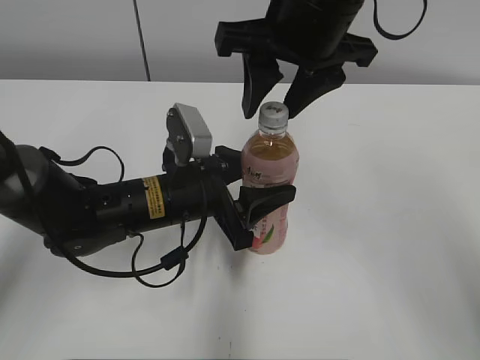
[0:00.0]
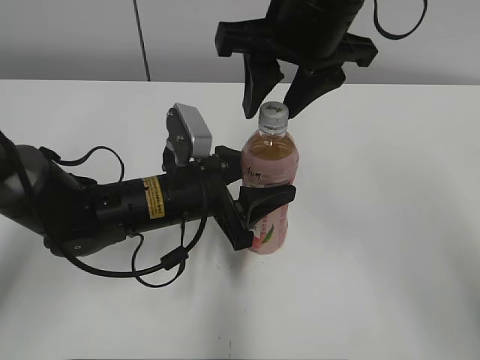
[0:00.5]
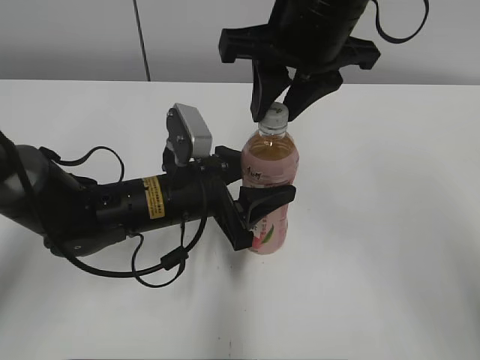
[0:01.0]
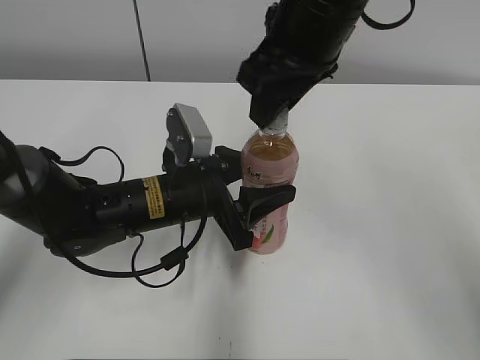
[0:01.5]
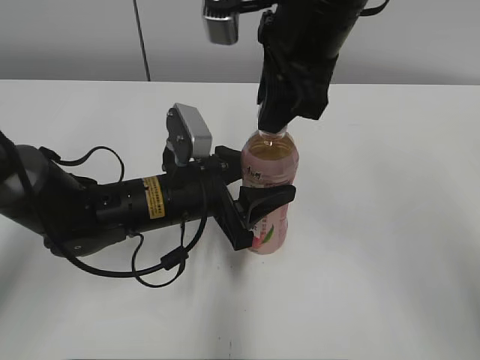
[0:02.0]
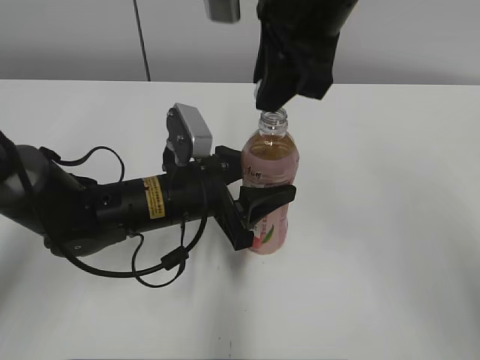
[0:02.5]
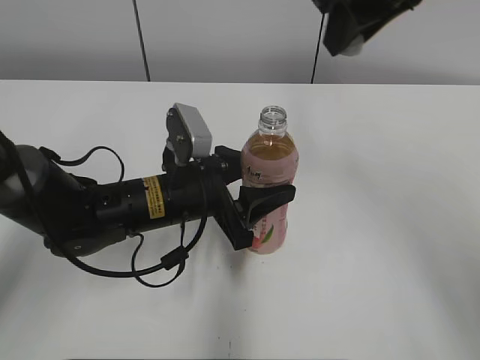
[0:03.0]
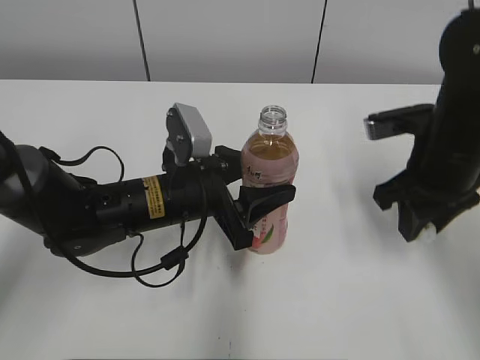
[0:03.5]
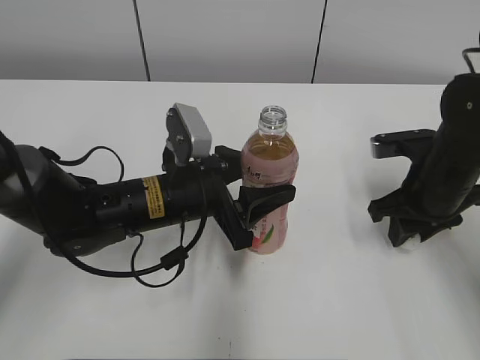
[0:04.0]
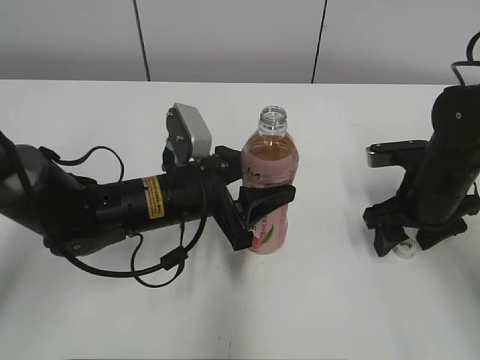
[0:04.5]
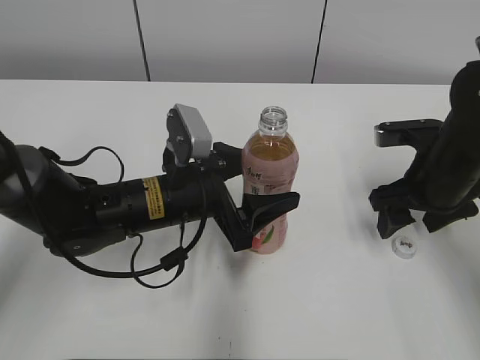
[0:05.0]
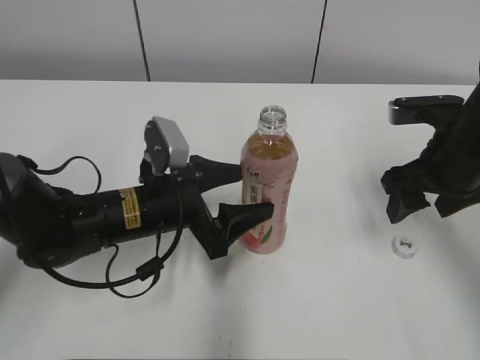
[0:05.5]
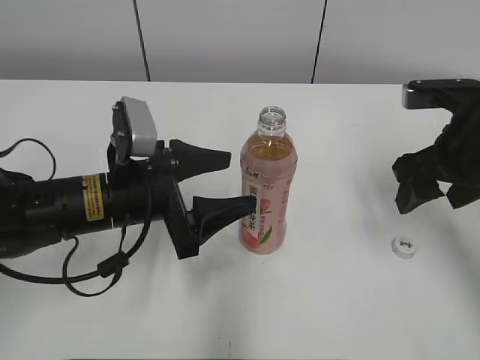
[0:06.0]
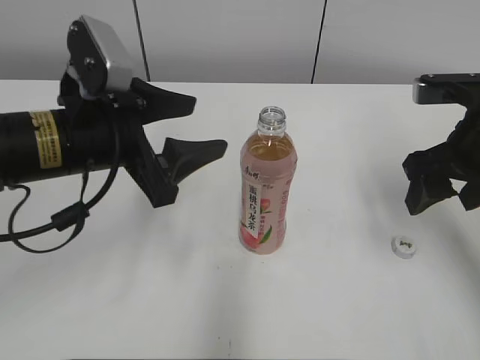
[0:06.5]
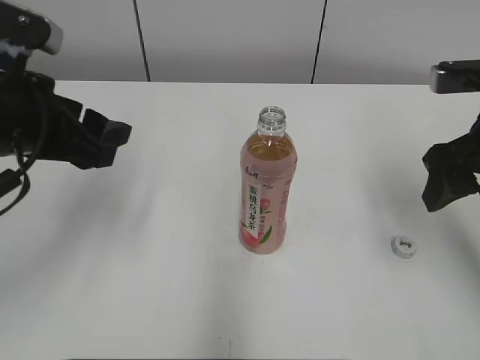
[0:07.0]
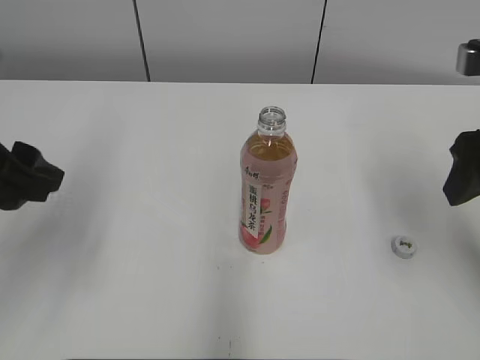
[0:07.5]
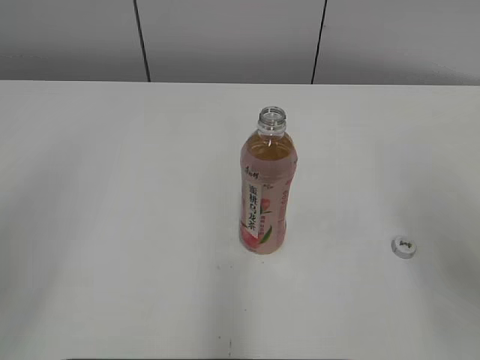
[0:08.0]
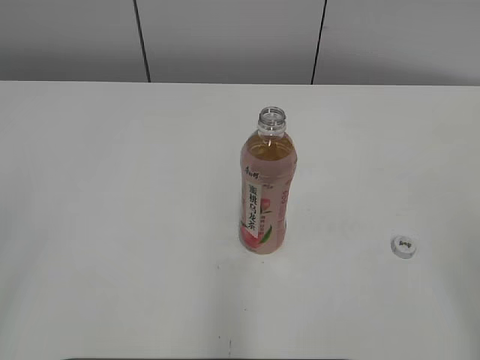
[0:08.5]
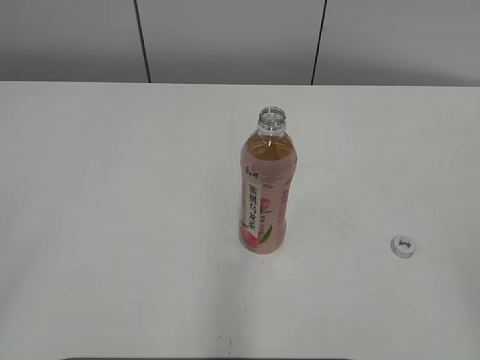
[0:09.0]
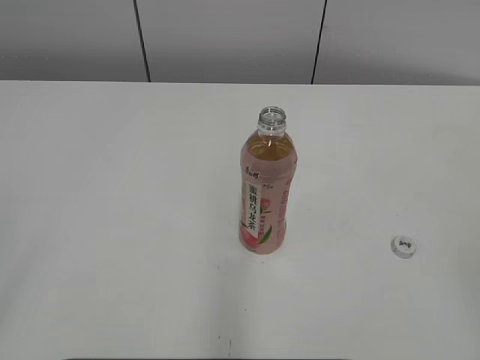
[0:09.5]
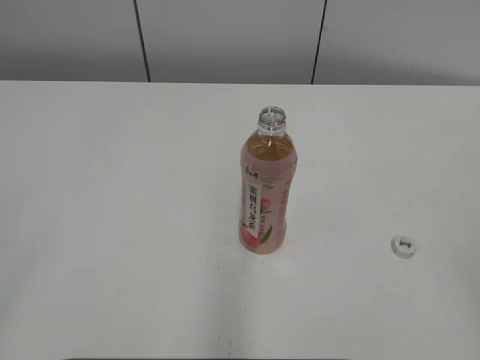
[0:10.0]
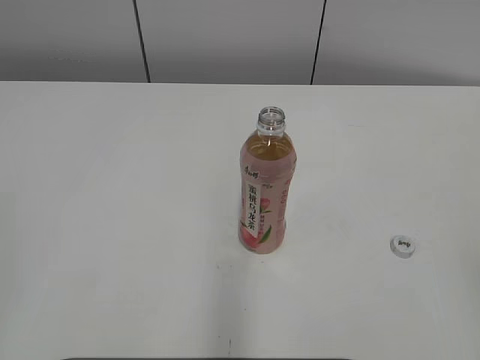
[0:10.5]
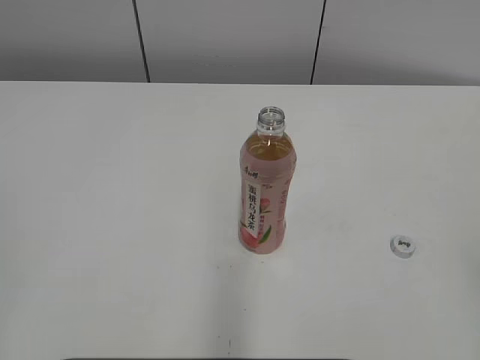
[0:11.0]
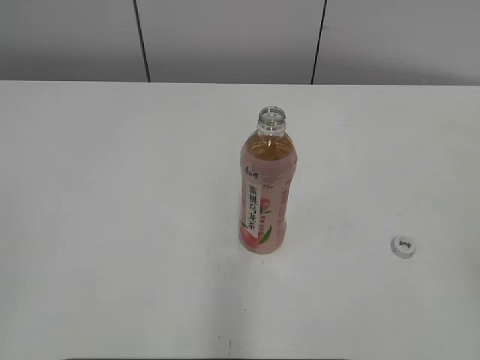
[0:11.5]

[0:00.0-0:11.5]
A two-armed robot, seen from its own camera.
Step, 2.5 to 4.0 s: Place the bottle cap on the right.
Step, 5.0 to 5.5 s: Place the Peach Oolong Tea with the left hand.
0.0 to 2.0 s: The right gripper closes.
2.0 to 4.0 s: The right gripper travels downward and to the right by roughly 25 cm.
4.0 to 6.0 s: The right gripper heads upward, covering about 5 cm, and opens. Meanwhile the left gripper ends up some 5 cm from where it was, and opens.
6.0 to 7.5 s: The right gripper moves upward, about 5 cm, while the left gripper shifts roughly 20 cm upward, to the left and backward.
7.5 to 9.5 s: Both grippers move backward, about 25 cm.

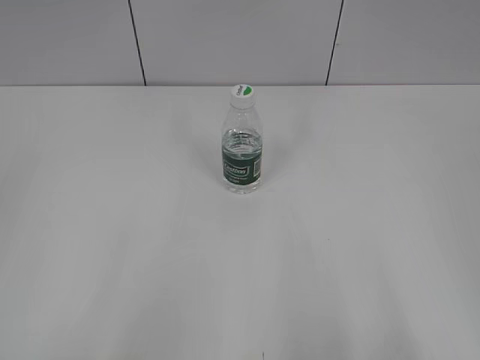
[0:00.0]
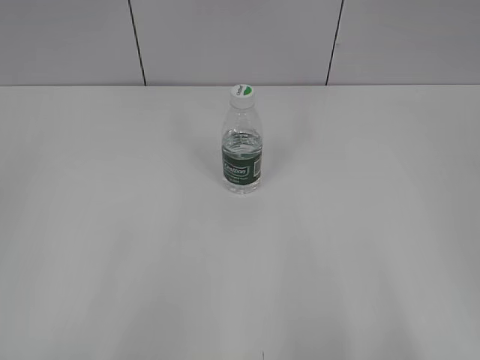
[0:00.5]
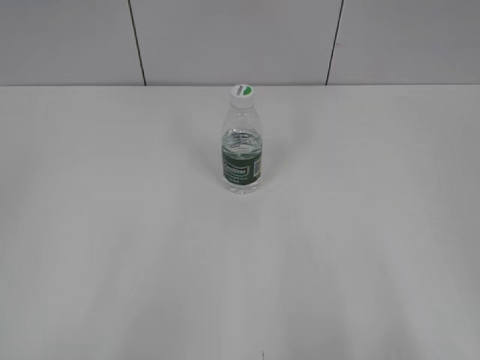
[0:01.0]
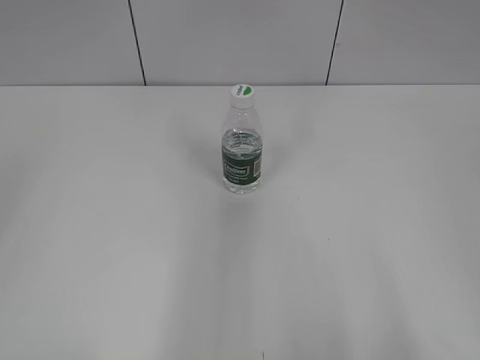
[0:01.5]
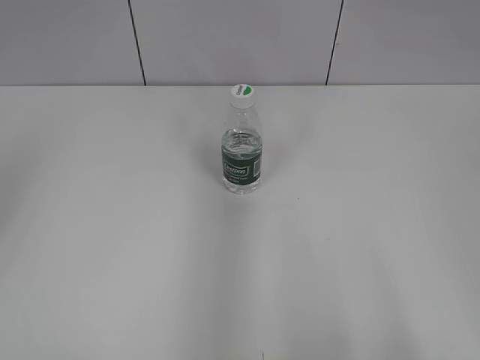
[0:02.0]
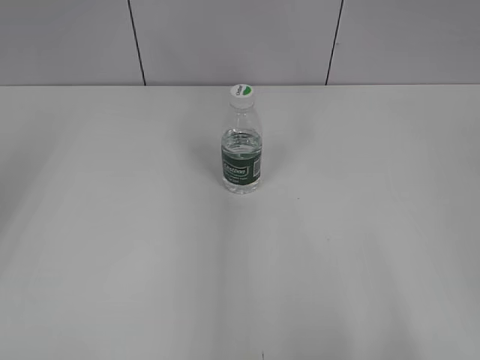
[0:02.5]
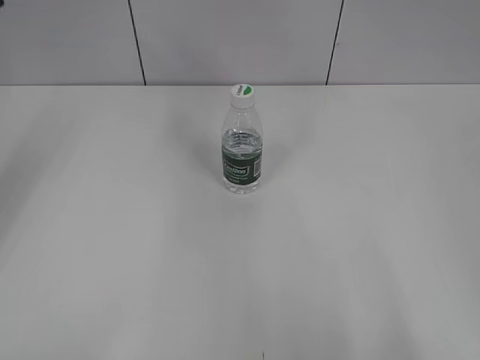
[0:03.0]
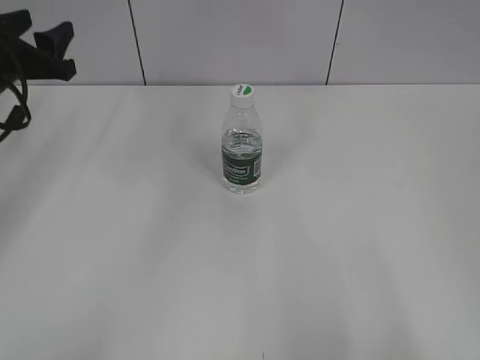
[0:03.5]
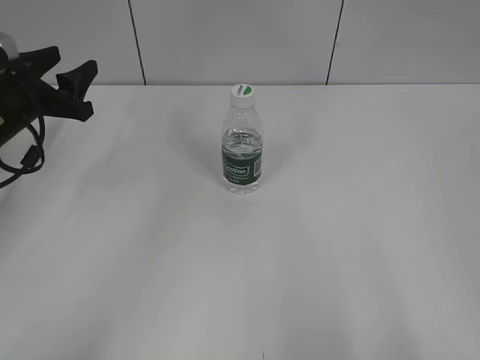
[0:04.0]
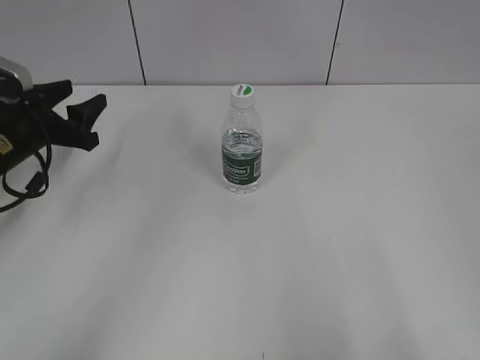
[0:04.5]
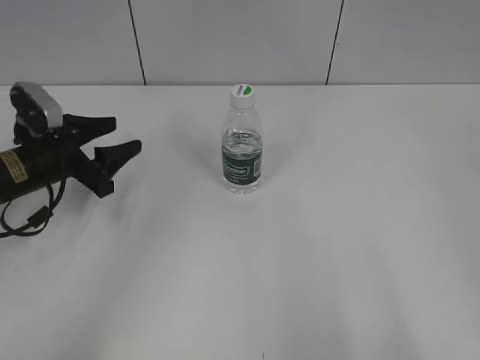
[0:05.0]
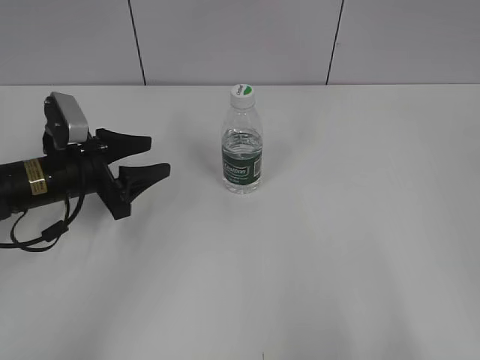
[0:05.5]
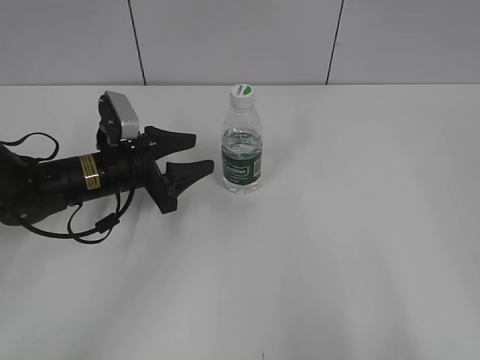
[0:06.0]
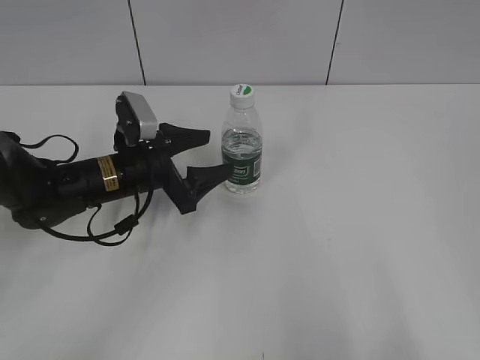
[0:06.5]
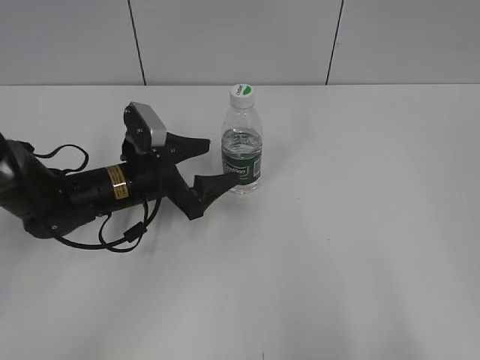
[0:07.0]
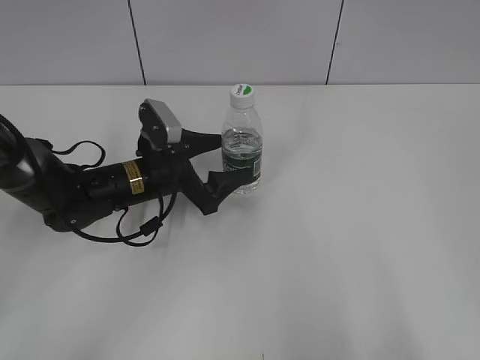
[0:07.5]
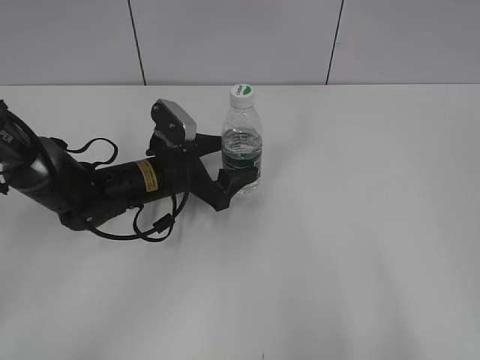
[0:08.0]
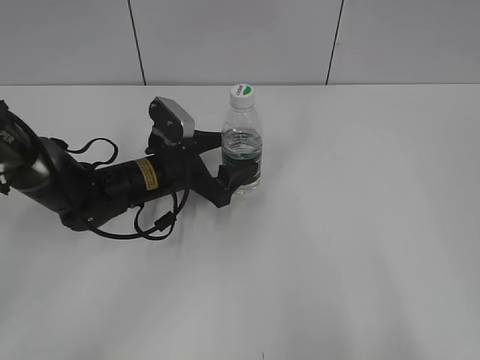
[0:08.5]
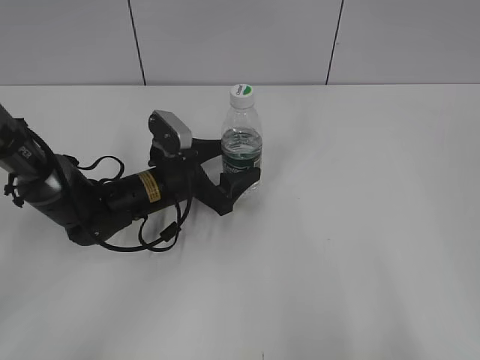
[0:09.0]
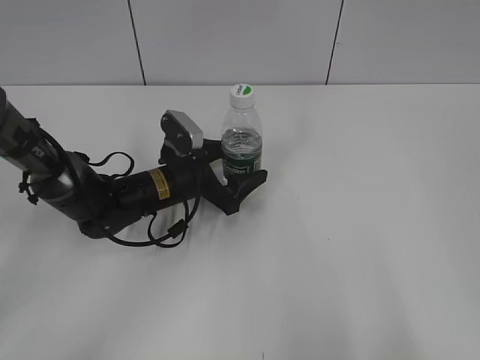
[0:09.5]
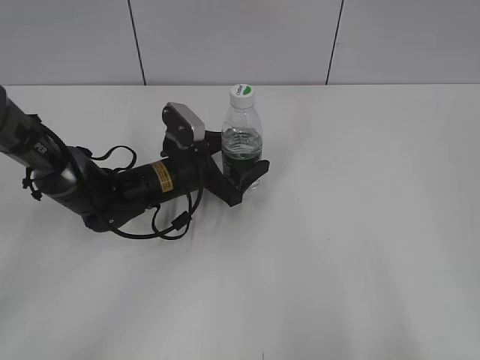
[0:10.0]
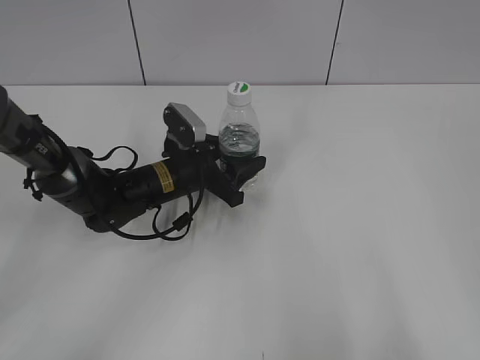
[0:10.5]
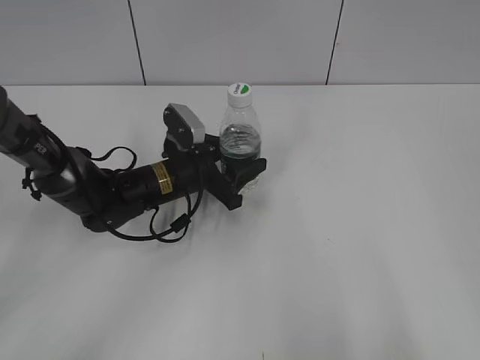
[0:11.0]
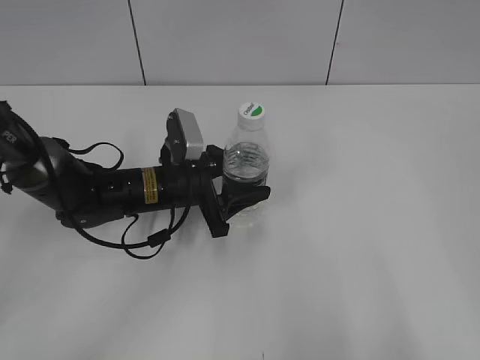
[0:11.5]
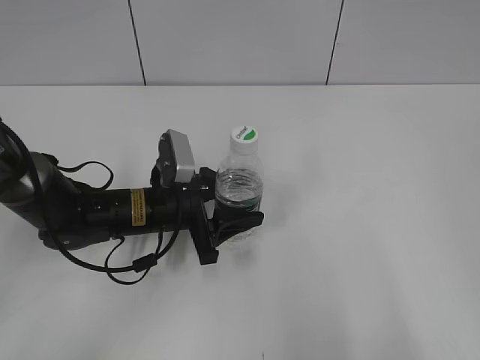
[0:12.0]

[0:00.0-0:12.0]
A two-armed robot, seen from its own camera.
Step, 0.0 to 10.5 s: Grasp the bottle and move it to the center of the table with the left gripper.
2.0 to 4.0 s: The left gripper moves downward and forward, approximately 30 cm.
4.0 to 6.0 s: The left gripper travels to the right and downward by roughly 15 cm.
6.0 to 8.0 s: The left gripper moves to the right, about 5 cm, and opens its fingers.
8.0 to 10.0 s: The grippers make only small movements.
10.0 to 12.0 s: The left gripper travels backward by some 5 cm, and closes up.

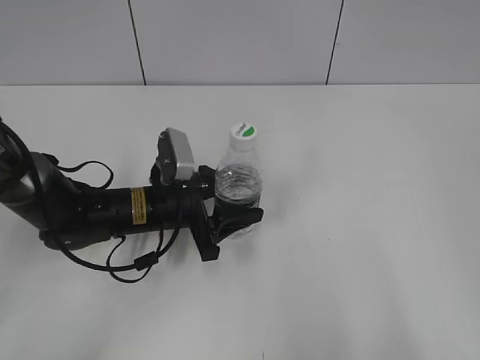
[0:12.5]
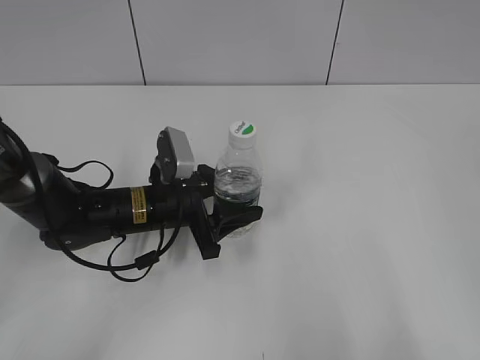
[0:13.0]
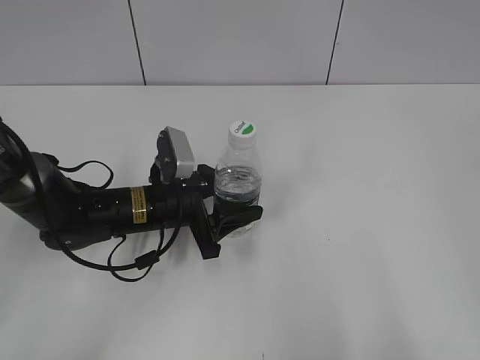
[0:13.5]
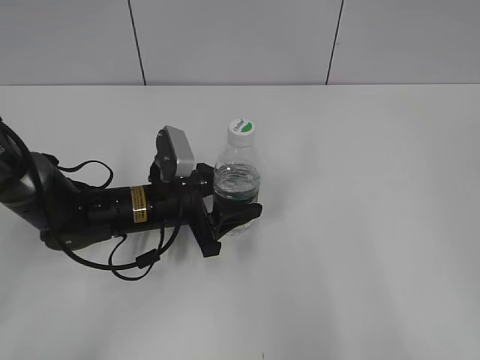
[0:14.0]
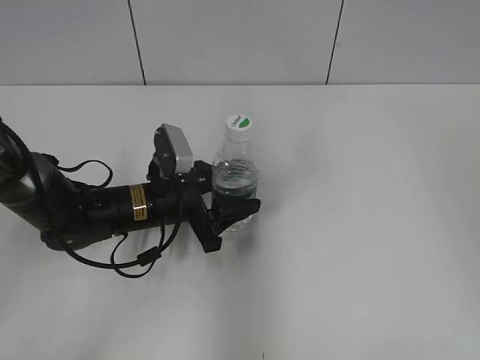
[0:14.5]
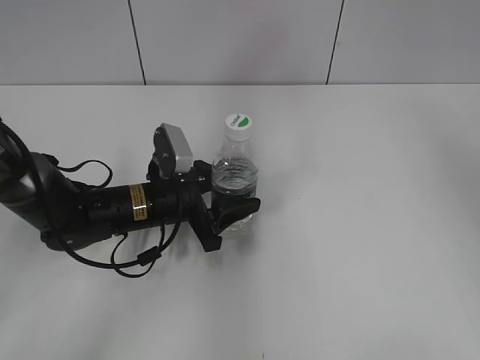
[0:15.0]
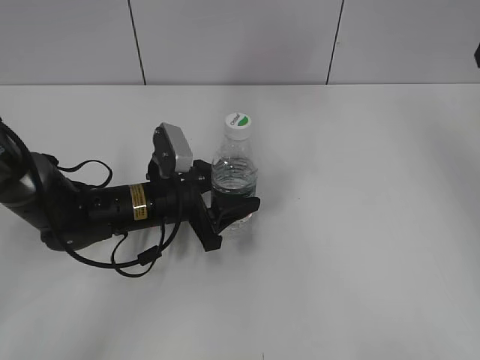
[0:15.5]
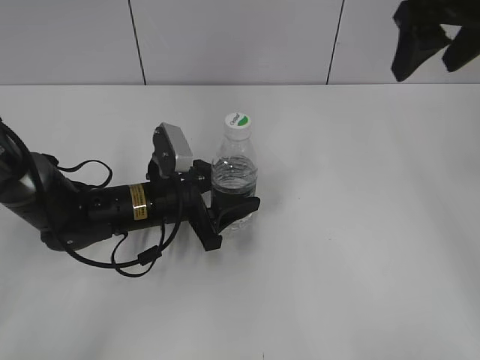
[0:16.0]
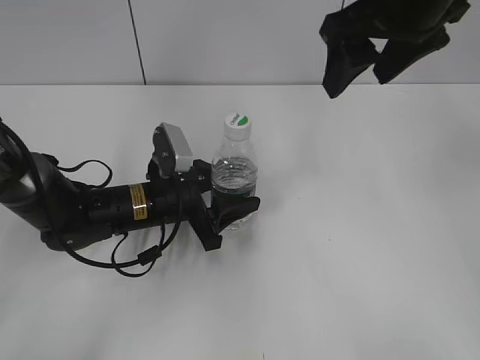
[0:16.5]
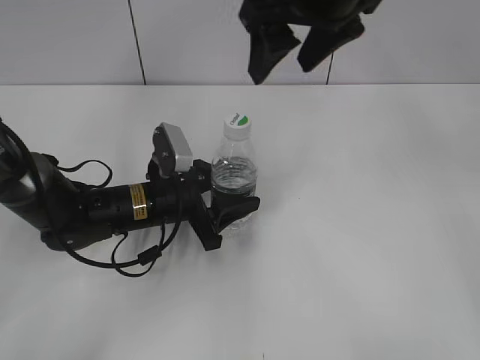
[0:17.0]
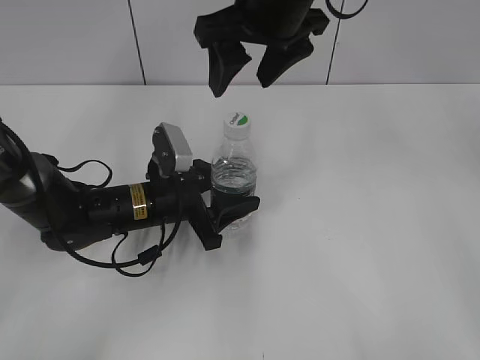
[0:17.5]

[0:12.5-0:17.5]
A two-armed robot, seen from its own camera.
12.5 to 15.0 s: The right gripper goes roughly 30 cm forward.
15.0 to 17.5 s: The right gripper moves to the left, roughly 25 cm.
